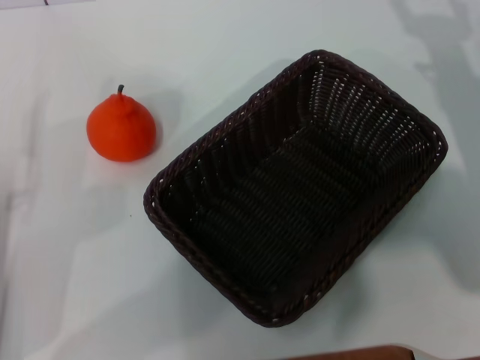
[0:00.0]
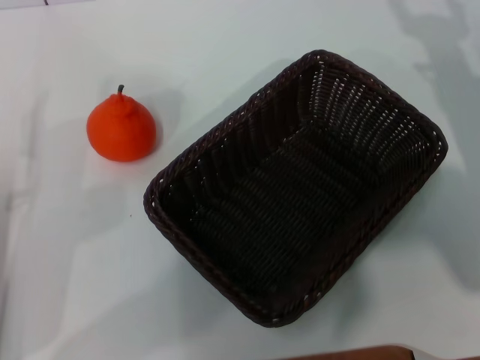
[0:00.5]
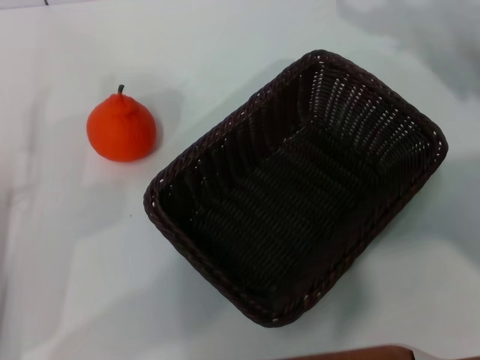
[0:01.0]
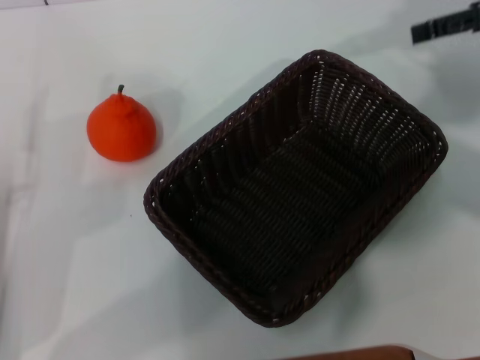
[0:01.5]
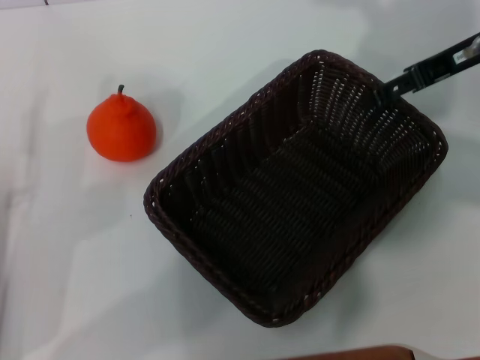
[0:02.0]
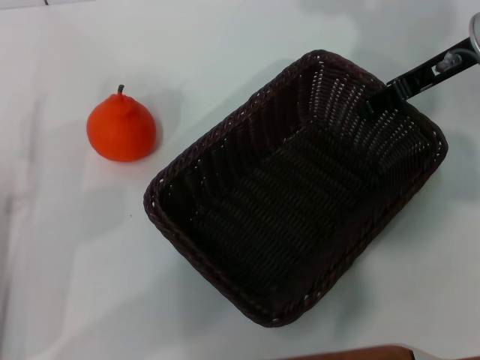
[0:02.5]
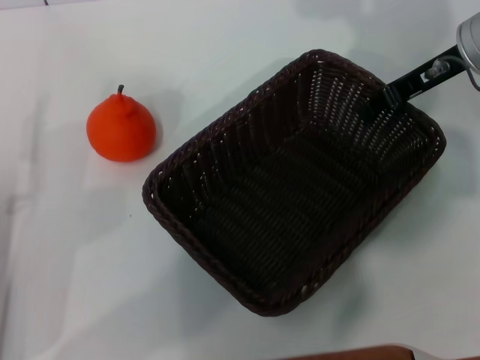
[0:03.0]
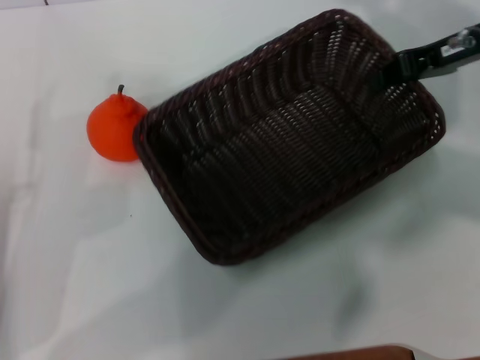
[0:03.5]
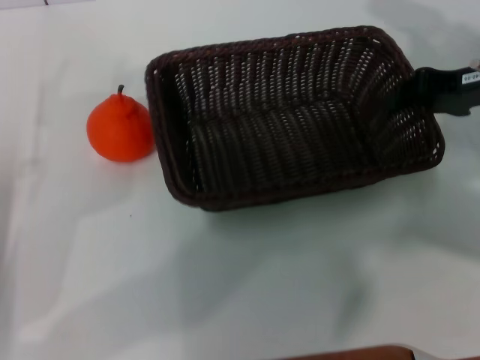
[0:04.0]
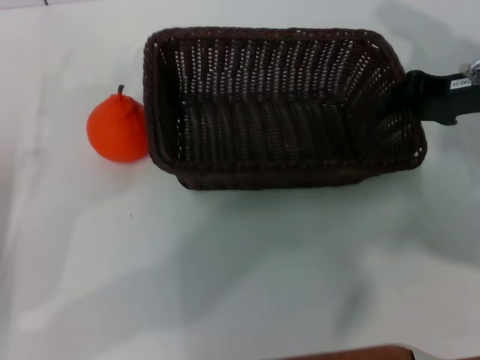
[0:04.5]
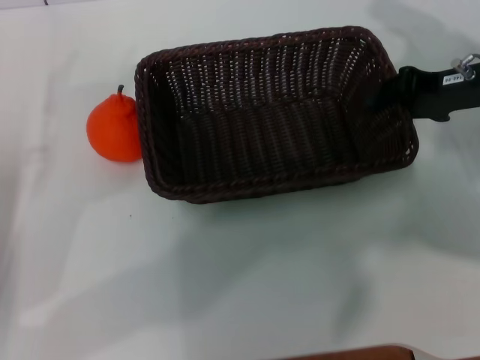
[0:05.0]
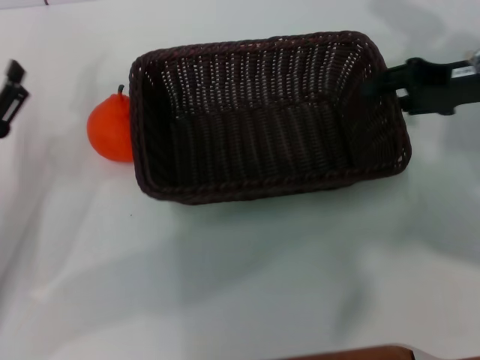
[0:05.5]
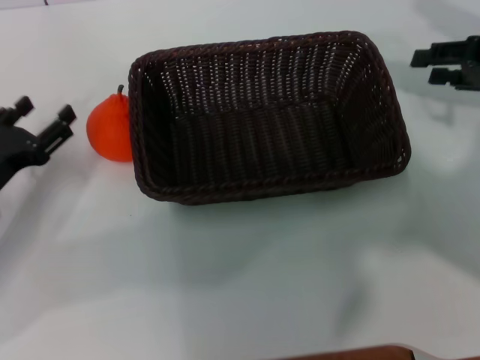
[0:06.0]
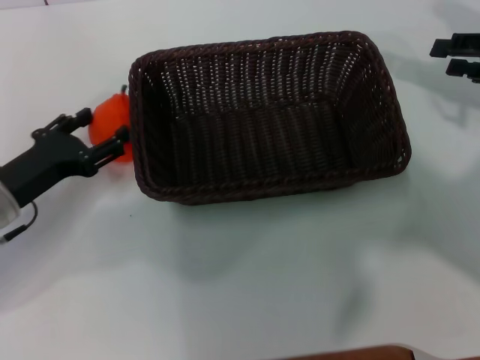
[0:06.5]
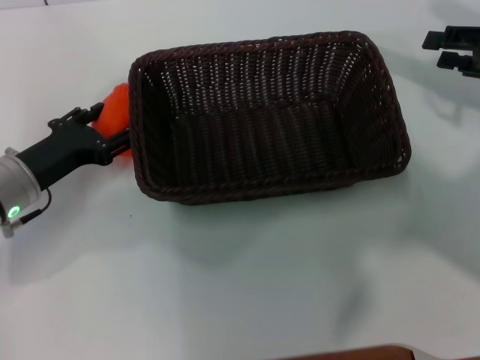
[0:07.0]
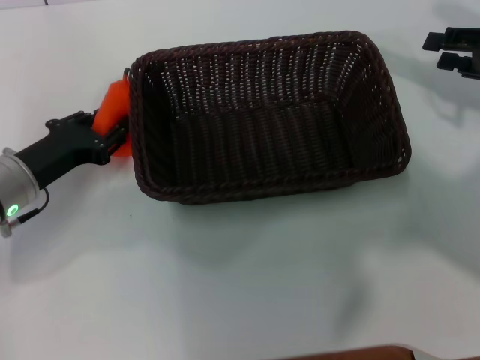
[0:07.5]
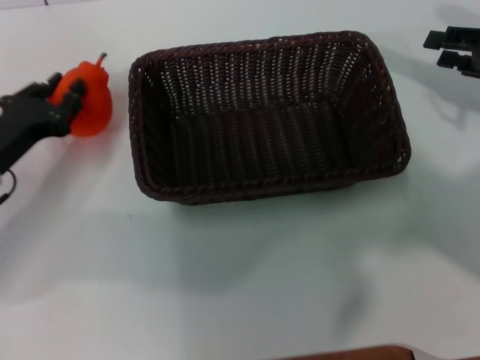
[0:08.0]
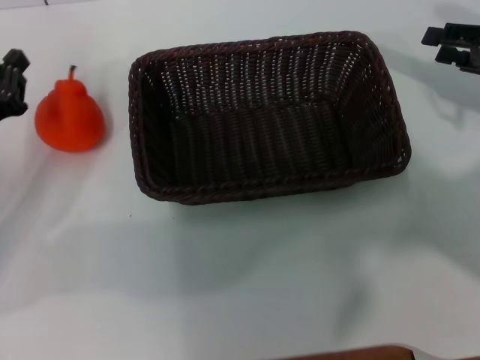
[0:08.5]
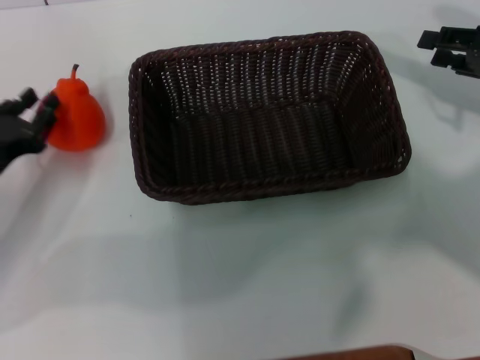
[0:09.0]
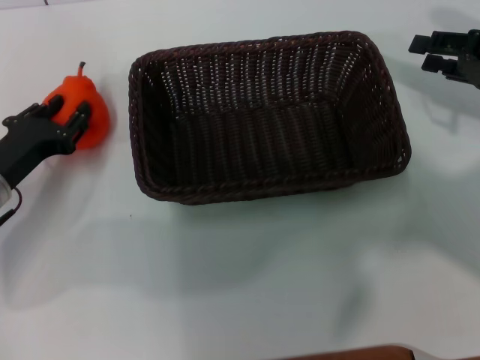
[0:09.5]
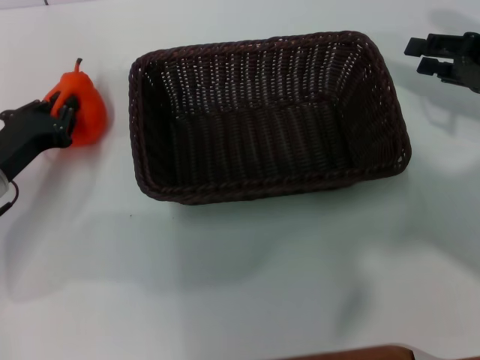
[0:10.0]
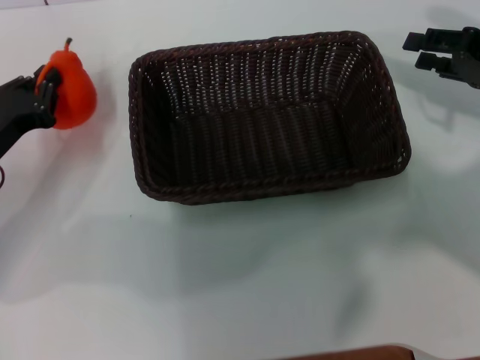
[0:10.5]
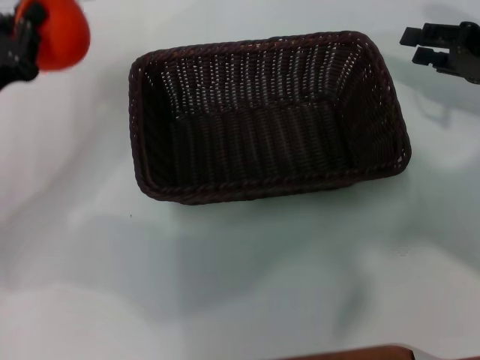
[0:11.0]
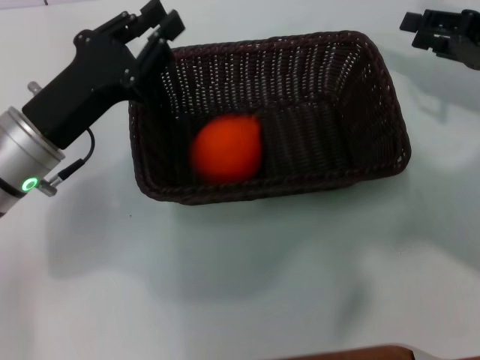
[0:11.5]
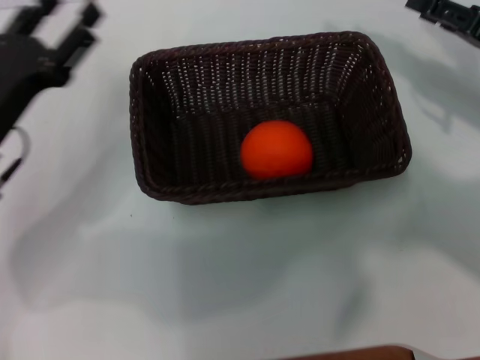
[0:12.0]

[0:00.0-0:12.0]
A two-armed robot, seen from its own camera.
Task of the whole recording: the right gripper pick up the black basket and place it horizontally in the middle of the table, the left gripper pick up the orange and place it into the black basket.
Step, 0:00.0 to 0:03.5: Pick up the dark basket with the right gripper.
Step, 0:04.0 to 0:05.5: Place the dark basket in the center of view with the right gripper.
Step, 0:06.0 to 0:10.0: Pick up the orange with the left gripper.
Step, 0:11.0 to 0:11.5: Place the orange into the dark basket with the left gripper.
0:00.0 to 0:02.0: The right gripper is displaced upward and forward by some 15 cm.
0:02.0 to 0:04.0: The right gripper ends up roughly 5 cm from where it was, and closes its fingers.
0:04.0 to 0:06.0: The right gripper opens, while the left gripper heads forward, covering roughly 5 cm.
0:06.0 to 0:08.0: The left gripper closes up.
0:08.0 to 0:10.0: The grippers move only a little.
0:10.0 to 0:12.0: The left gripper goes roughly 5 cm upward, goes to the right and returns, approximately 5 cm each way, and opens its fingers.
